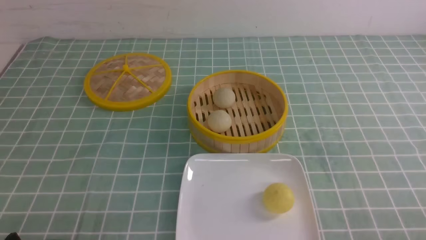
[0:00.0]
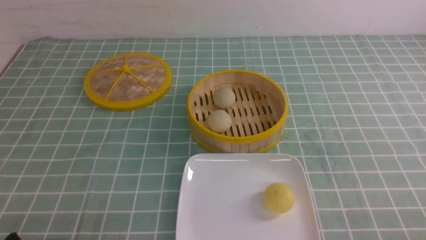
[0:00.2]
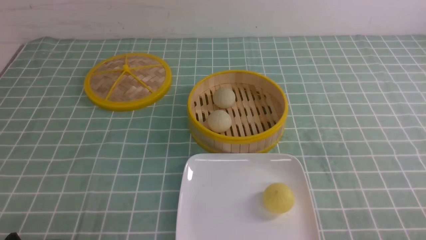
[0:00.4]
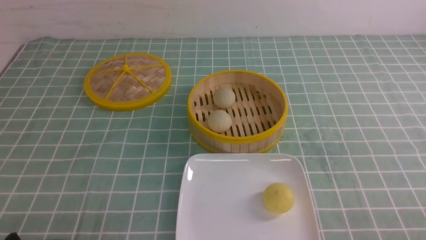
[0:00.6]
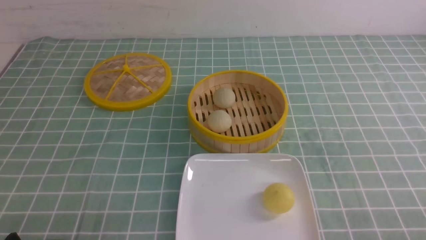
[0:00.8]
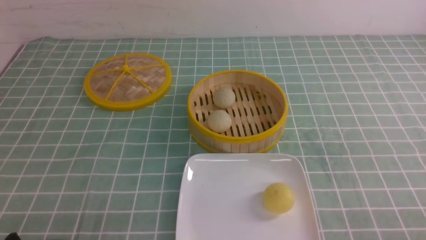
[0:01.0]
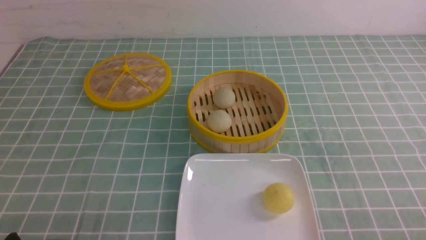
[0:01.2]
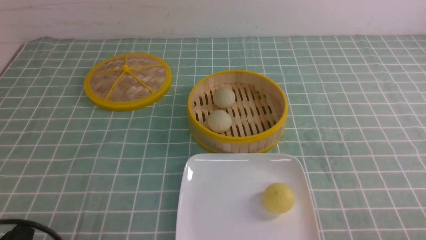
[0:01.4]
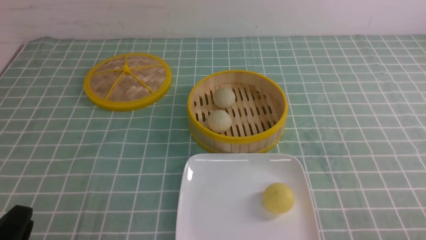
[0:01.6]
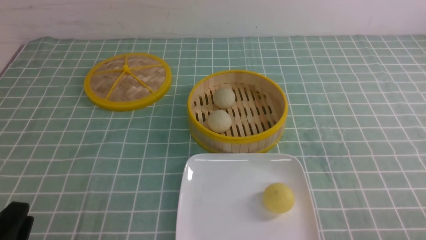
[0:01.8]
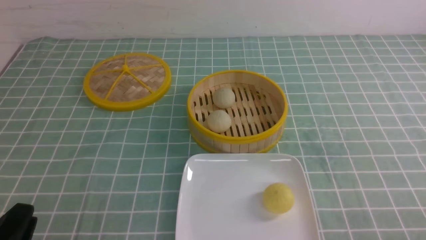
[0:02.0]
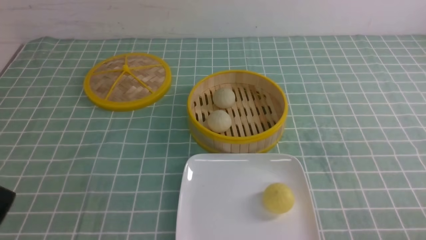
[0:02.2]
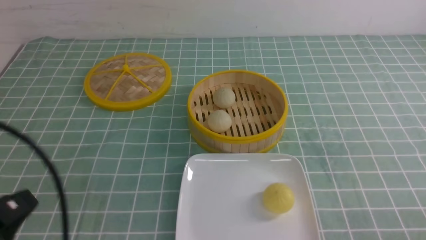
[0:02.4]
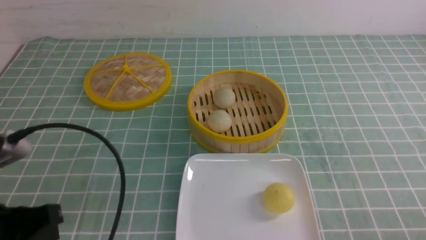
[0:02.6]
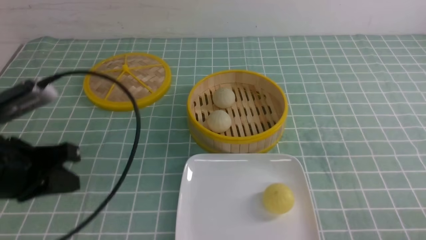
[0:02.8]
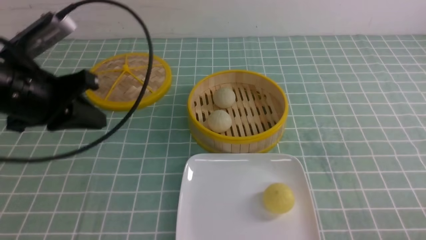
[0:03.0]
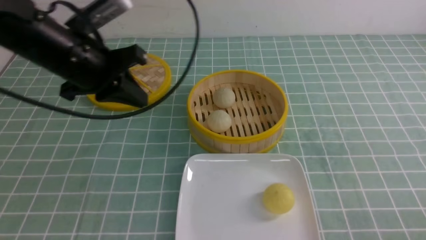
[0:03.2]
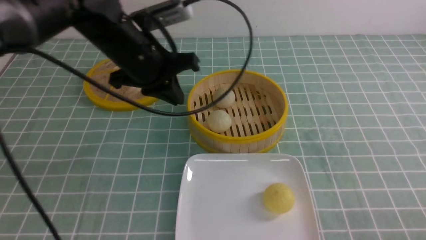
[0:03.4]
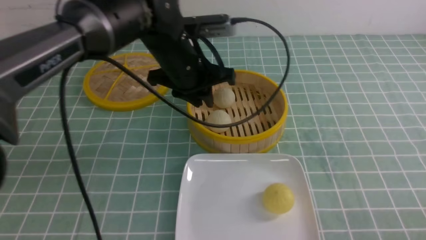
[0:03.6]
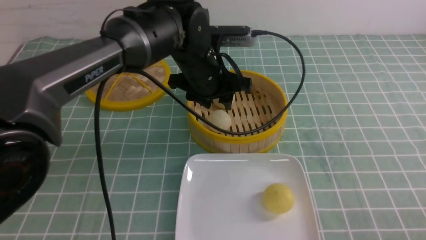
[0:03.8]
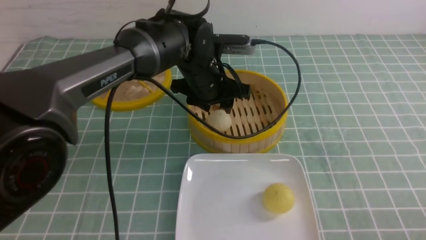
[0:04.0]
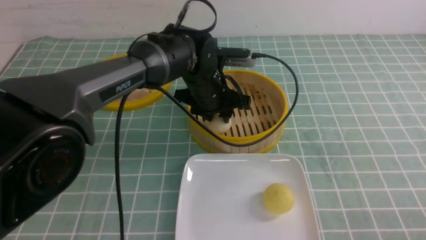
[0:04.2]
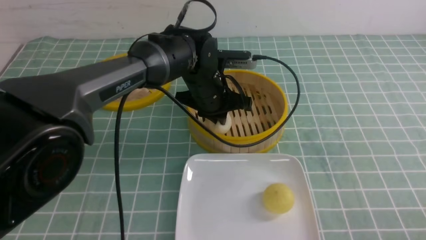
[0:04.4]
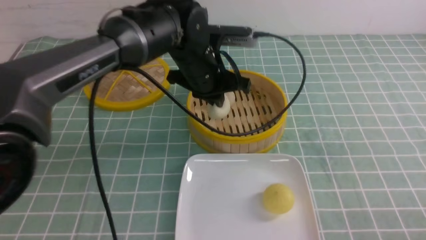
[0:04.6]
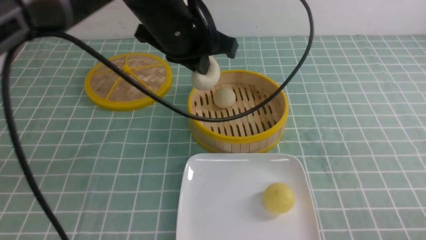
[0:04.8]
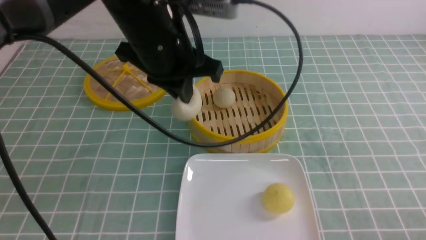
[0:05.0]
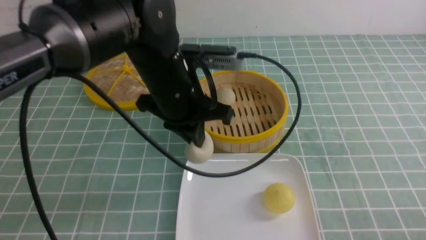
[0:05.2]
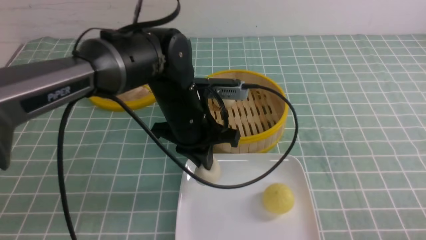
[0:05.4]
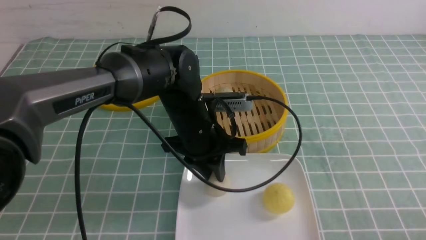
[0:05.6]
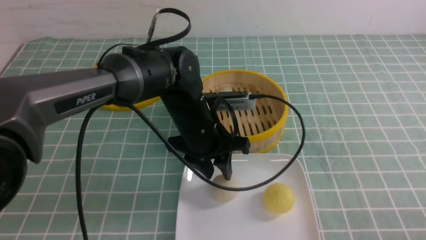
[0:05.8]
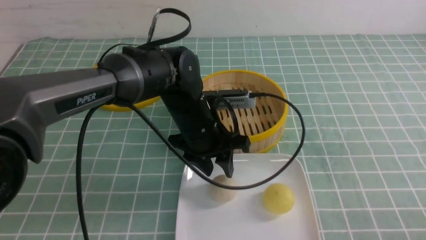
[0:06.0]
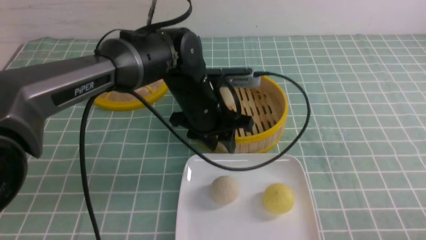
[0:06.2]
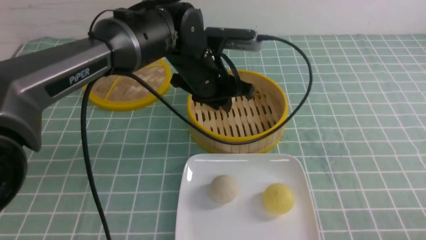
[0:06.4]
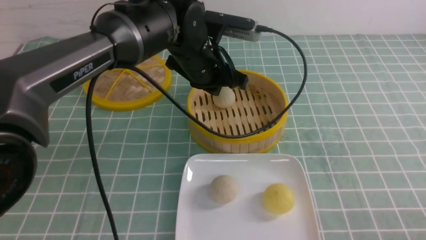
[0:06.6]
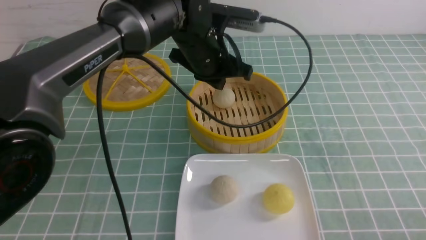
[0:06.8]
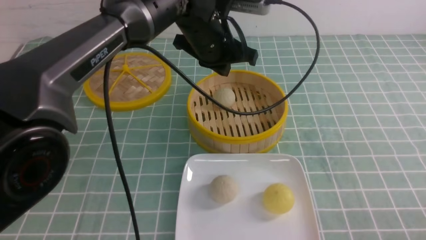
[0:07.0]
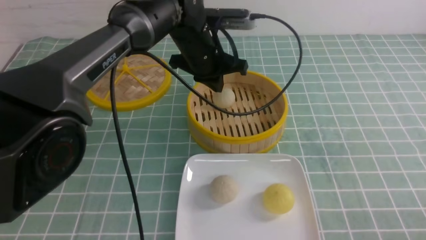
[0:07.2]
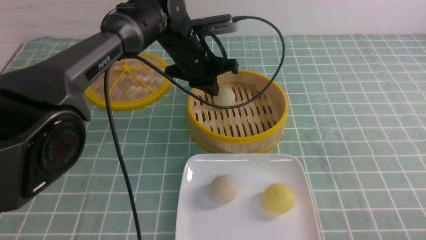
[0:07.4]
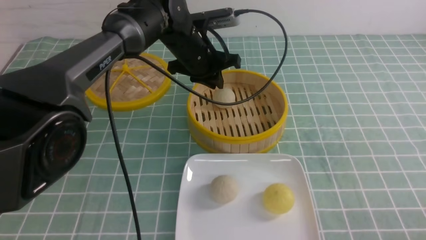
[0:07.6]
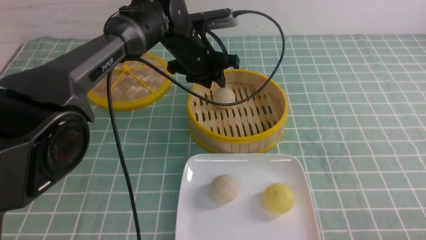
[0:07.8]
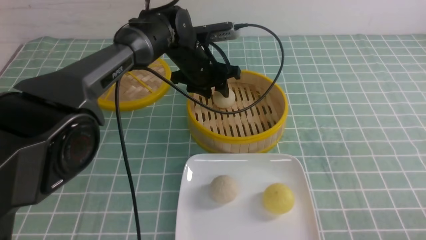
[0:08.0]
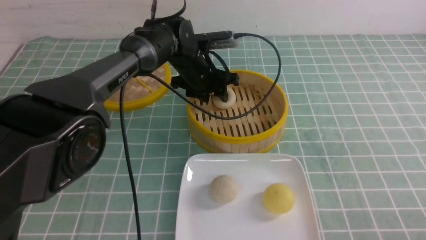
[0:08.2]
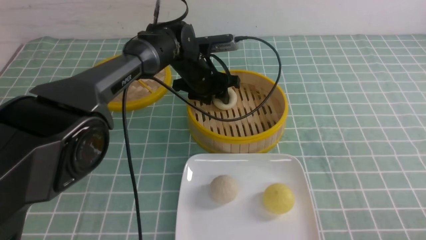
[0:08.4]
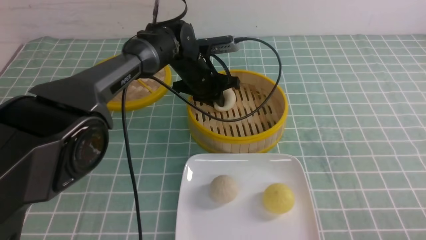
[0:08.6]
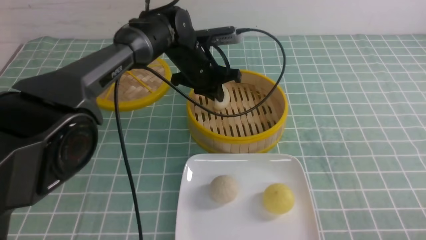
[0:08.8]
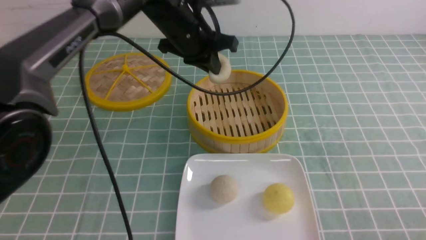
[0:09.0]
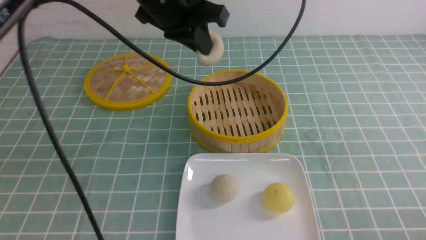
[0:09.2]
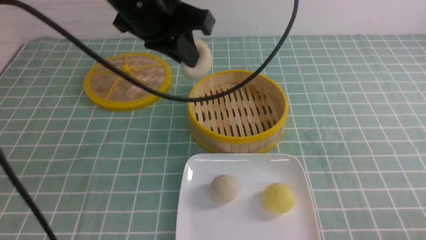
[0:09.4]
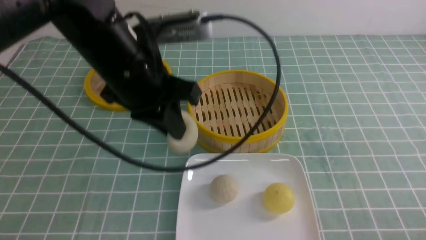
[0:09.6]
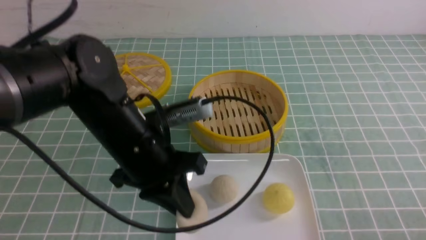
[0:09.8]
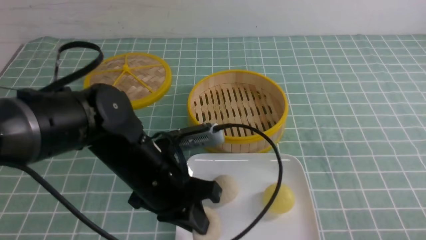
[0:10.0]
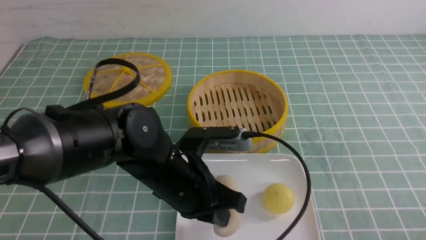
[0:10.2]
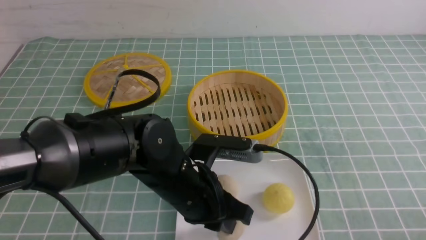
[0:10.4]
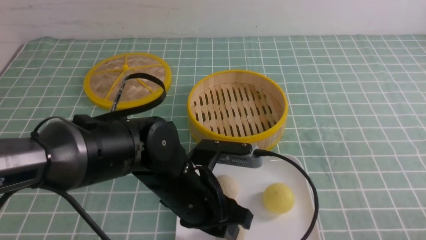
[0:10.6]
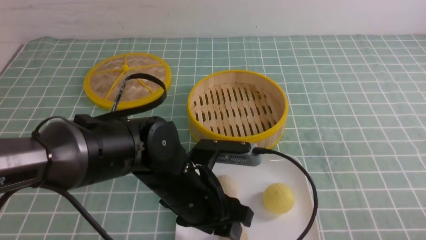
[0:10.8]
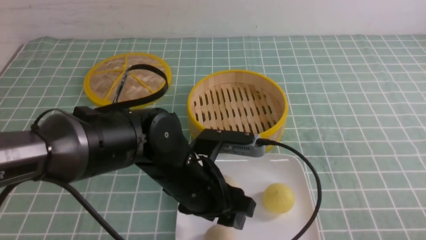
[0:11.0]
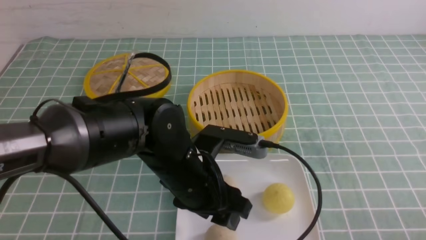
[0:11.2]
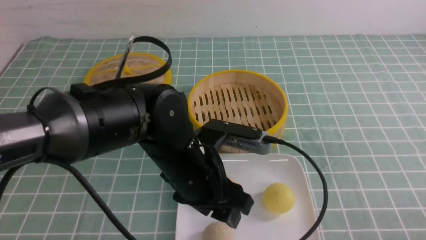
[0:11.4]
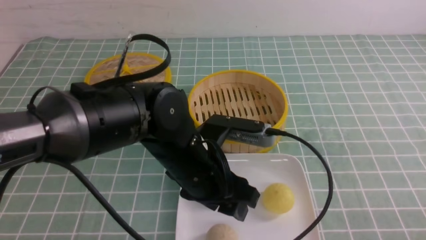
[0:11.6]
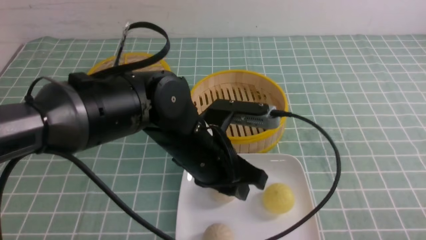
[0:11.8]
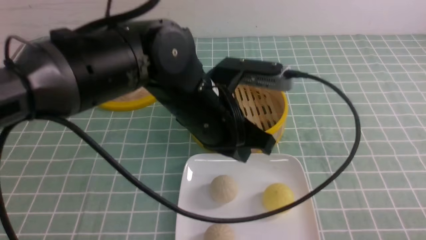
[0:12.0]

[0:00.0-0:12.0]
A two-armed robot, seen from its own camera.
Step, 0:00.0 to 0:04.4: use the left arm to grab the steamed stuffed bun that is closest to it.
Step, 0:04.6 to 0:05.6: use the left arm to put the steamed stuffed bun into the plate.
Step, 0:06.0 to 0:08.6: use the left arm to grab the steamed stuffed bun that is closest to it.
Step, 0:08.8 to 0:10.6: use the left arm to put the steamed stuffed bun into the plate.
0:01.6 to 0:03.0: The left gripper travels forward and upward by roughly 25 cm, and closes.
0:03.0 to 0:04.4: The left gripper travels to the right, forward and downward by some 25 cm, and opens and closes again.
0:04.4 to 0:06.0: The left gripper is displaced backward by about 5 cm, goes upward and returns, approximately 10 cm each way, and opens.
0:06.0 to 0:07.6: The left gripper shifts roughly 10 cm forward, and closes.
0:07.6 to 0:09.0: The left gripper travels upward by some 5 cm, and opens, then closes once more.
0:09.0 to 0:10.4: The left gripper shifts approximately 25 cm backward and downward.
0:10.4 to 0:12.0: The left gripper is displaced upward by about 10 cm, and opens and closes again.

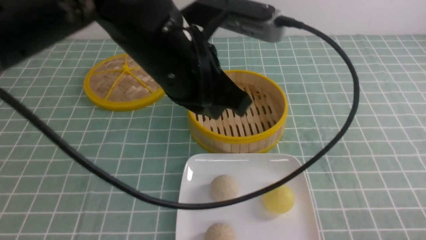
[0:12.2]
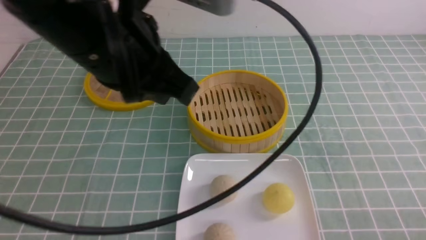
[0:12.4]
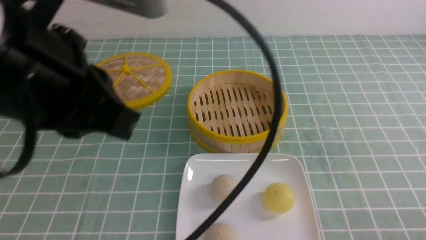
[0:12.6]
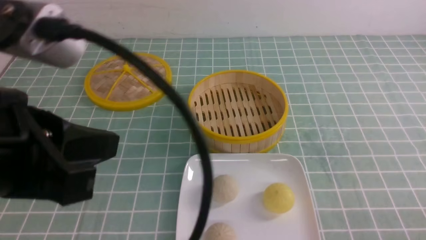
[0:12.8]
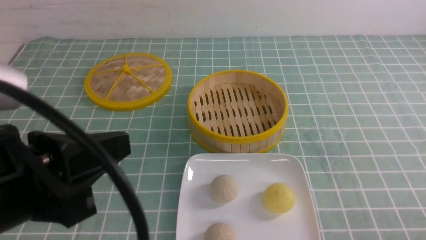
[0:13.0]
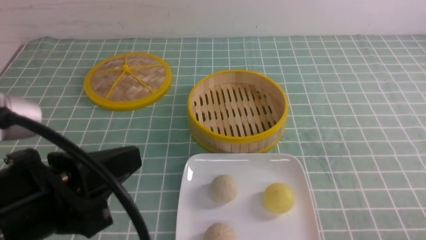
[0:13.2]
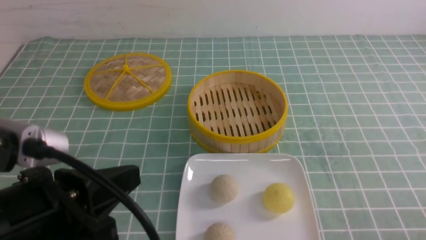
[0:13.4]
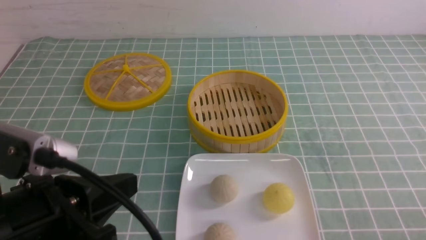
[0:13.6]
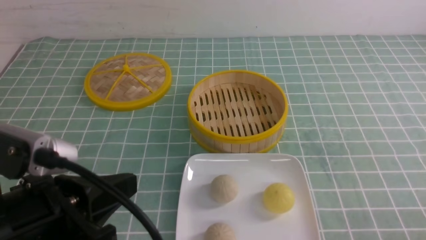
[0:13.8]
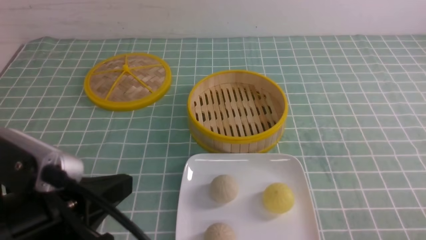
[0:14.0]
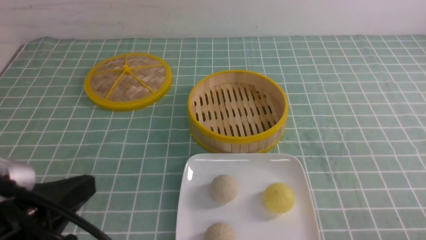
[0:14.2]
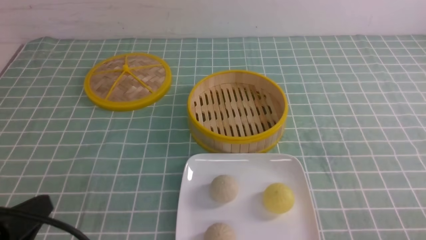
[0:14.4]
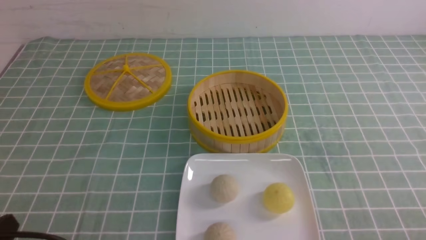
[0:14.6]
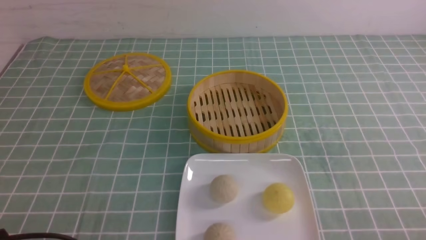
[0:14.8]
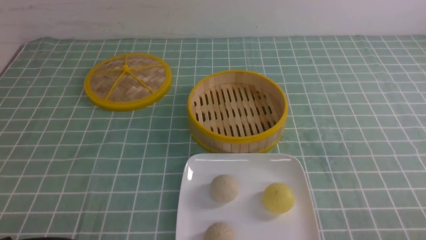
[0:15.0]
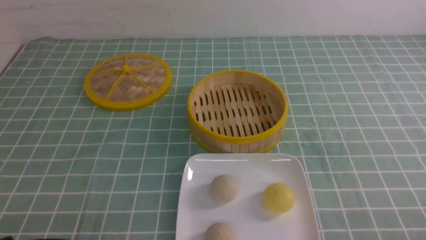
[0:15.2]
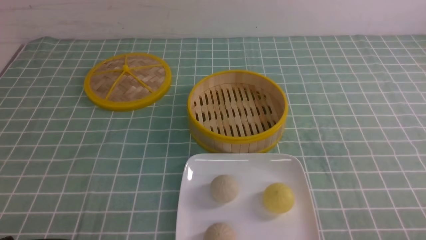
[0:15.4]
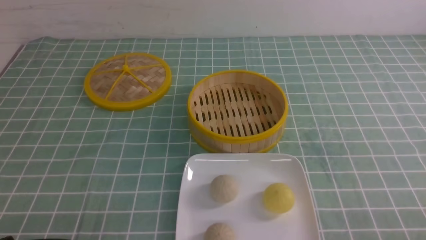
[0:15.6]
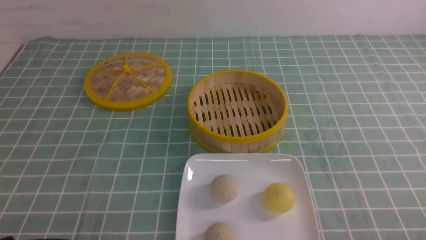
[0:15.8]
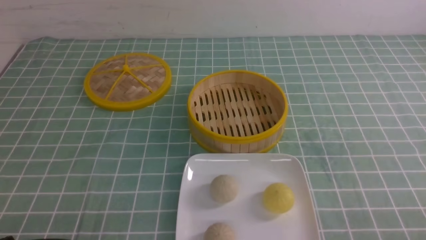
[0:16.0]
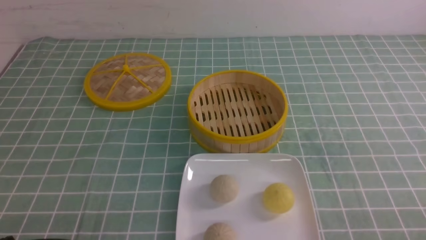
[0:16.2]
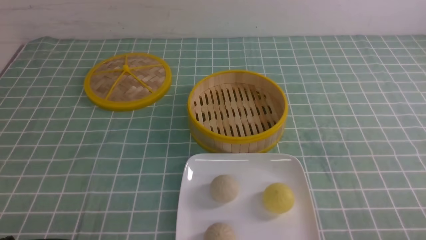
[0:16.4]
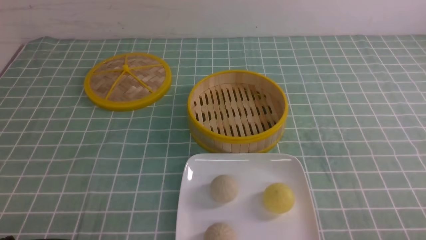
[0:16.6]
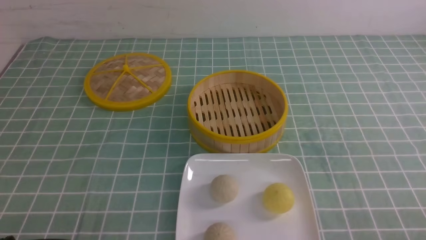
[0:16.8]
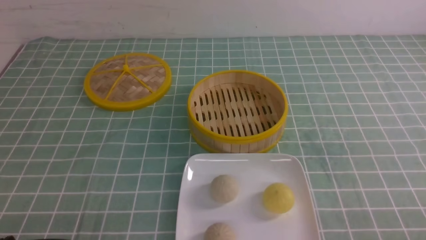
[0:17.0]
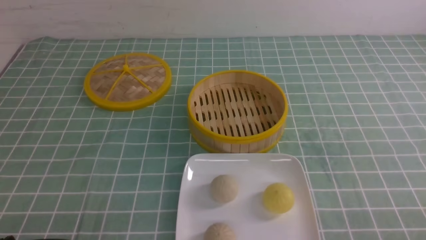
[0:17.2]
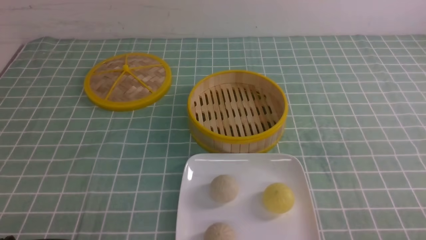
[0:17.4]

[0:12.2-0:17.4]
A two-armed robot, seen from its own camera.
0:12.2 to 0:14.0: The left gripper moves backward, to the left and downward, roughly 20 cm.
0:14.0 to 0:15.6: The left gripper goes roughly 15 cm downward and to the left.
0:15.6 to 0:17.4: Both grippers stay about where they are.
